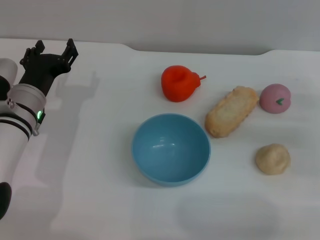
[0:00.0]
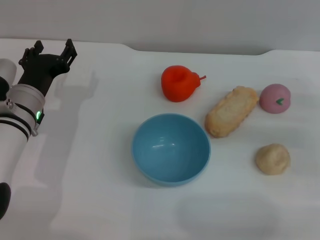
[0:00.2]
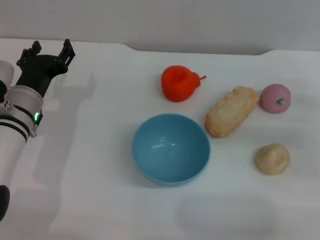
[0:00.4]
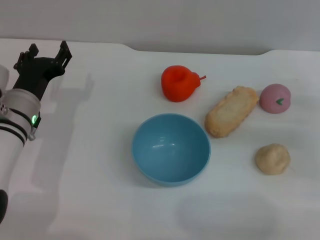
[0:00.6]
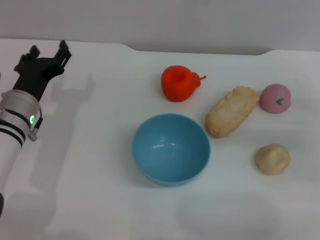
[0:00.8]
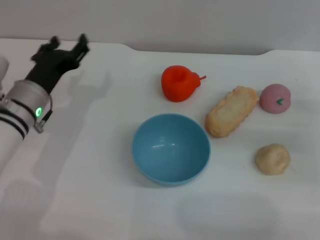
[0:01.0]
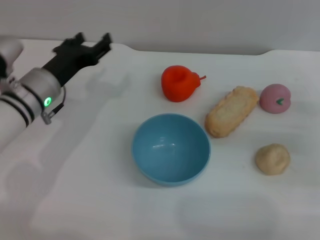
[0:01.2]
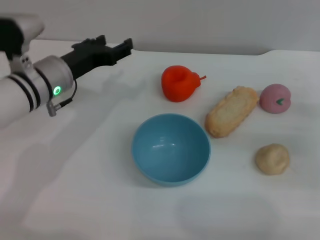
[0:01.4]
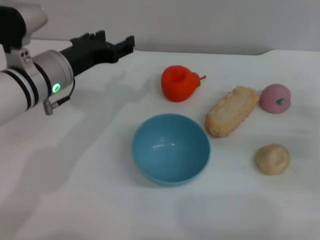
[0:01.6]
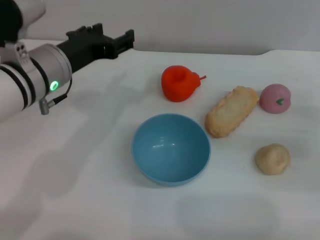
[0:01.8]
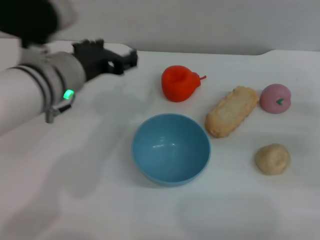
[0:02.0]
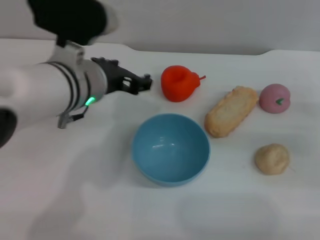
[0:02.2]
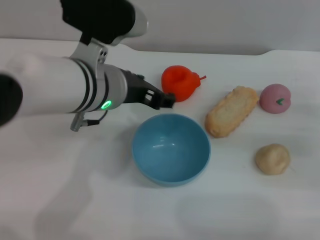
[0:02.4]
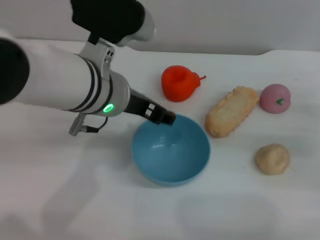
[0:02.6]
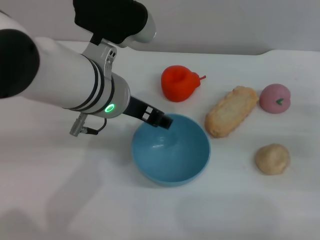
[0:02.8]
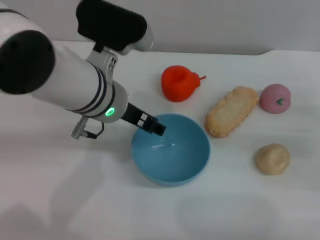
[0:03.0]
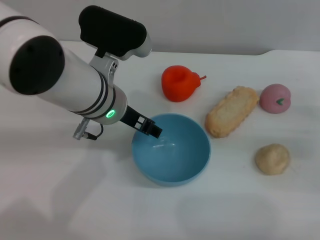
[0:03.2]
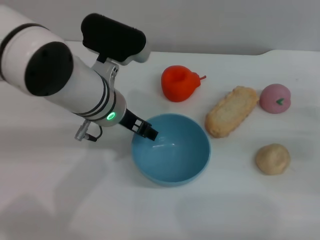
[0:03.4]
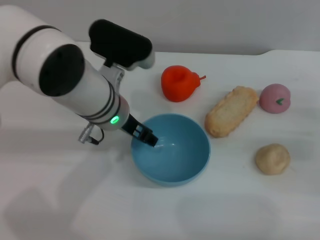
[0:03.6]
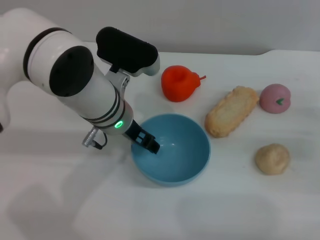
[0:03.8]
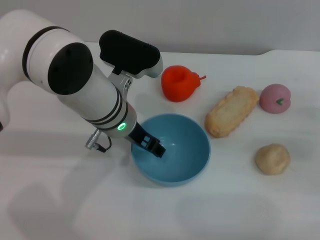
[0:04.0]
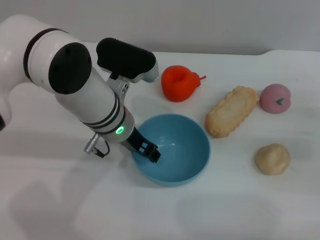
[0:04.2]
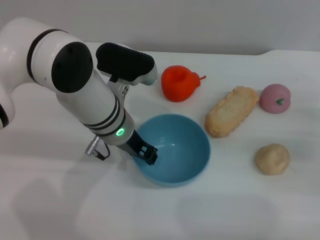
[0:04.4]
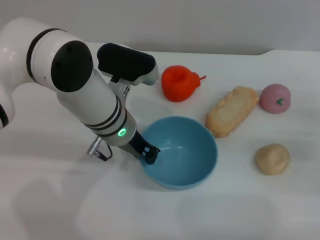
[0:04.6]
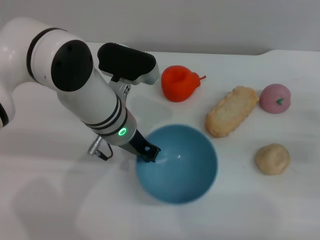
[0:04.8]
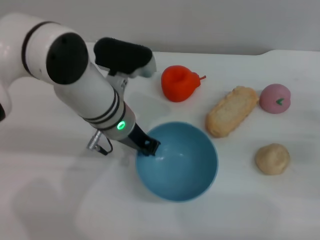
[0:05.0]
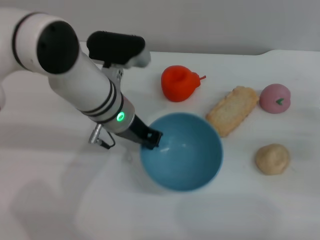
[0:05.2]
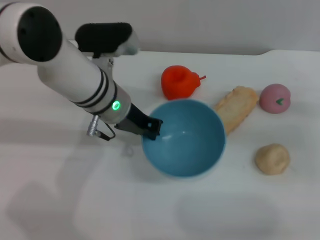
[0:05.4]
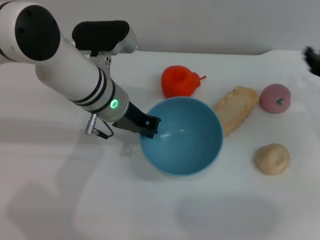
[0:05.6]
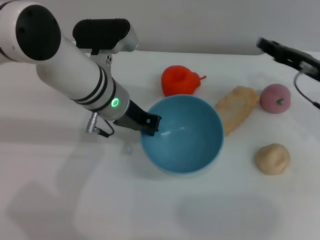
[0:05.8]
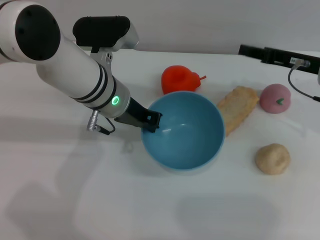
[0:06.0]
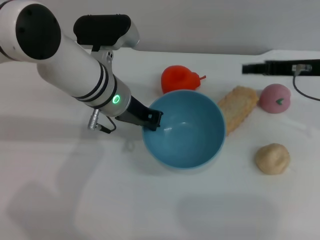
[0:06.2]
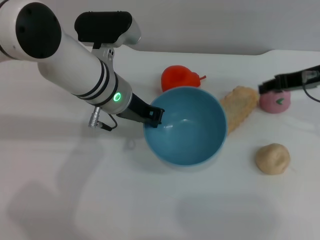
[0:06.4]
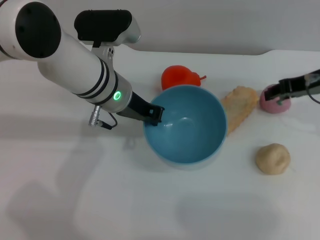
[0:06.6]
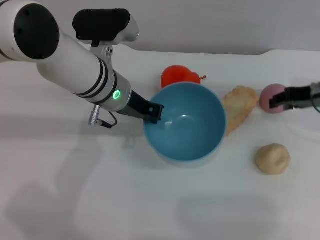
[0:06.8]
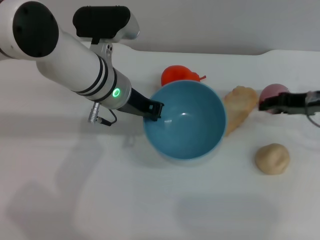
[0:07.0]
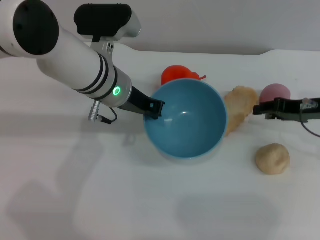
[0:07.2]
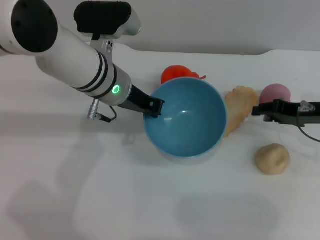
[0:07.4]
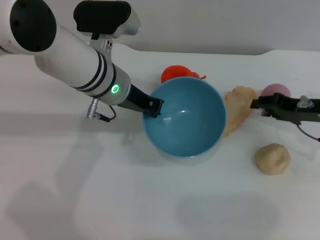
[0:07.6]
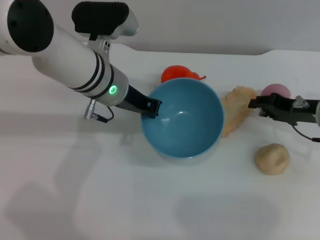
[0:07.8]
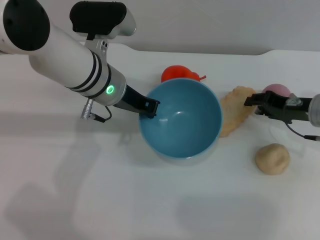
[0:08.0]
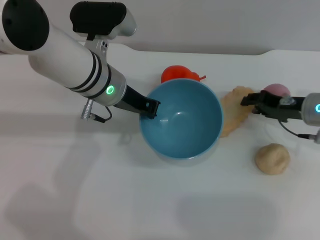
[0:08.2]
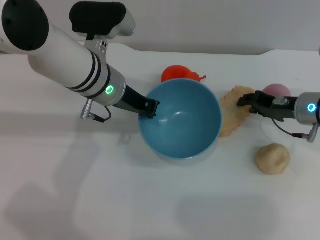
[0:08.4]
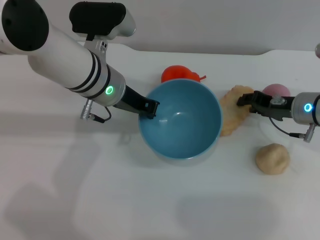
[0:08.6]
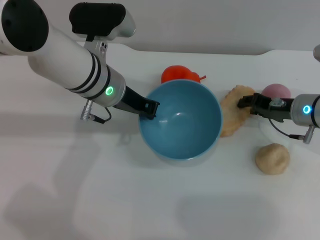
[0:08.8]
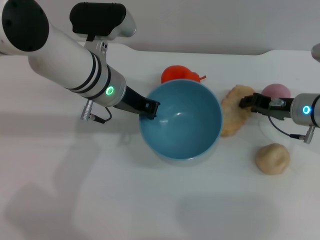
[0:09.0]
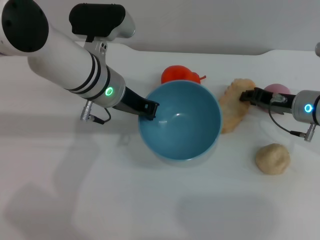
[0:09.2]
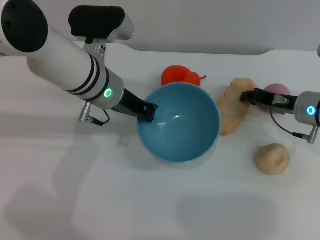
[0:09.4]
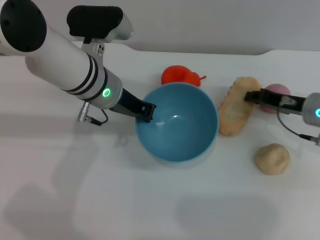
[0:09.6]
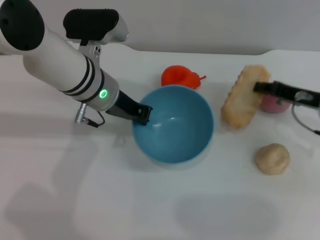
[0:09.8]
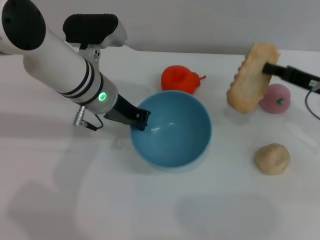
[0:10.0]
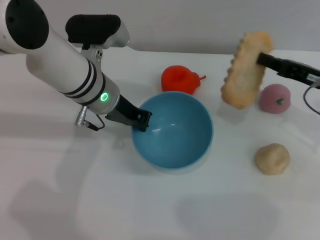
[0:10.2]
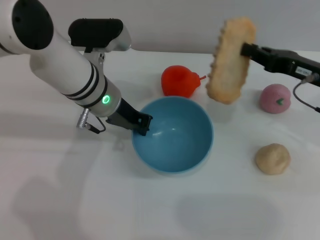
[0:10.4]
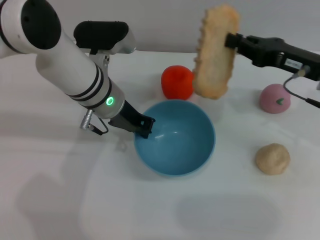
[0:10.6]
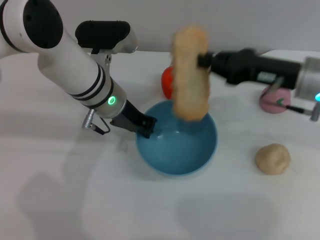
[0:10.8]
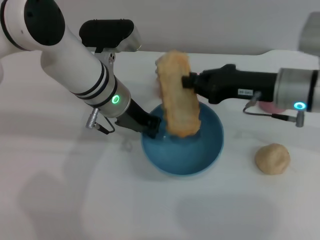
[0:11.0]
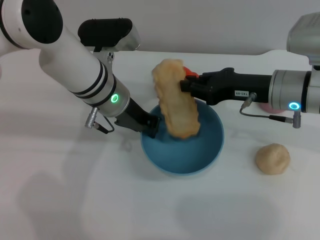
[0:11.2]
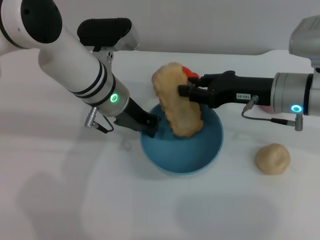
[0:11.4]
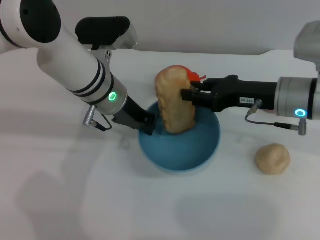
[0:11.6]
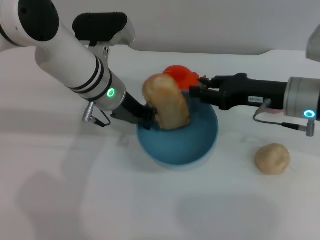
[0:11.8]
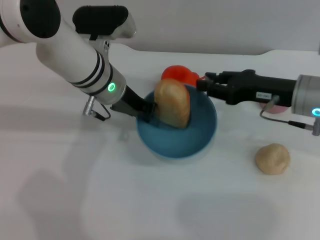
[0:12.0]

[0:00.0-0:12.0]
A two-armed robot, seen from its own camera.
Task of the whole recording: put the bread into the blue bowl and pour it out repeatedly.
Step, 0:00.0 to 0:05.0: Pick up the bowl with the left gripper.
Step, 0:05.4 to 0:09.8: Pick up the bread with the right gripper.
0:00.0 to 0:01.6: The left gripper moves upward, about 10 cm.
0:01.6 to 0:03.0: The left gripper travels to the right by roughly 10 cm.
0:03.0 to 0:04.4: The left gripper moves downward, some 5 cm.
0:04.4 to 0:06.0: The left gripper closes; the right gripper heads to the left, upward and forward, covering approximately 15 cm.
0:06.0 to 0:07.6: The right gripper shifts by approximately 5 cm.
0:07.6 to 0:09.0: The right gripper ends up roughly 5 cm from where it was.
0:09.0 to 0:10.4: The right gripper goes roughly 5 cm upward, and closes its fingers.
0:10.4 to 0:12.0: The right gripper opens.

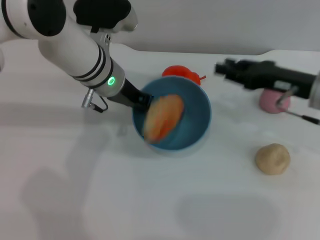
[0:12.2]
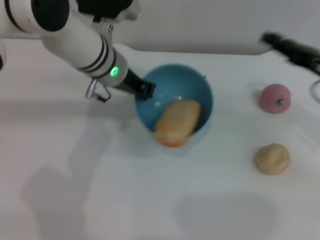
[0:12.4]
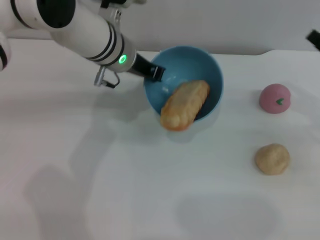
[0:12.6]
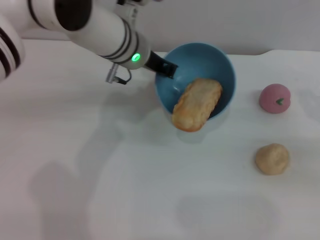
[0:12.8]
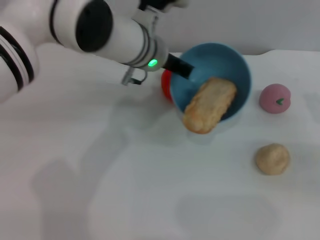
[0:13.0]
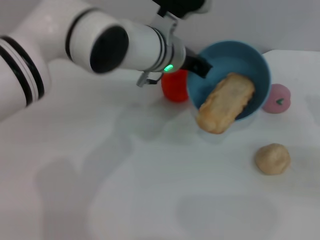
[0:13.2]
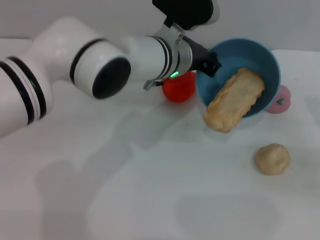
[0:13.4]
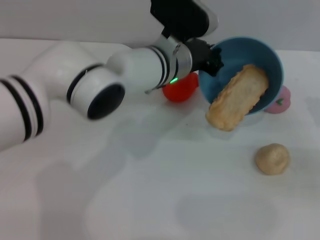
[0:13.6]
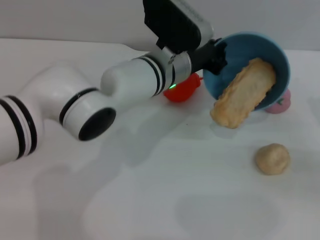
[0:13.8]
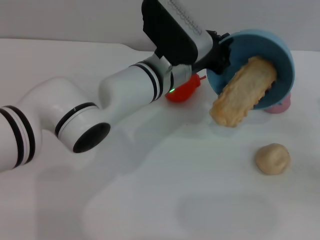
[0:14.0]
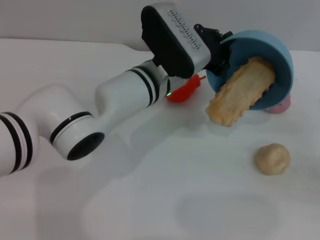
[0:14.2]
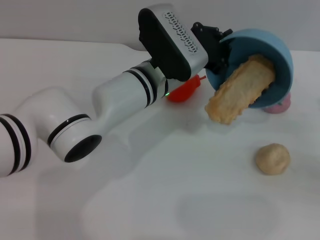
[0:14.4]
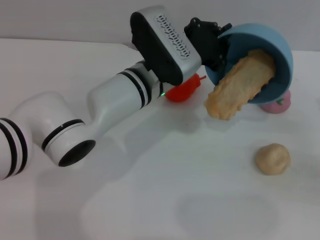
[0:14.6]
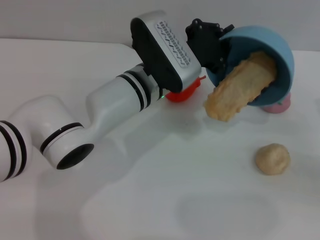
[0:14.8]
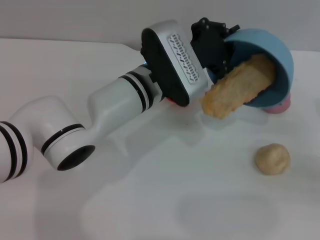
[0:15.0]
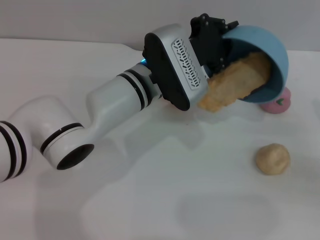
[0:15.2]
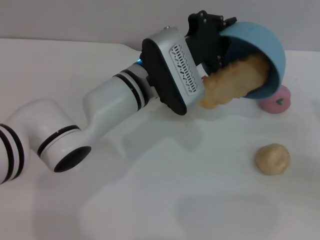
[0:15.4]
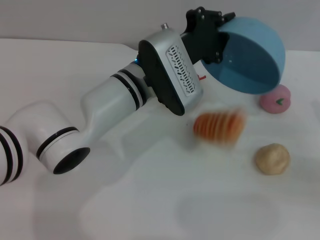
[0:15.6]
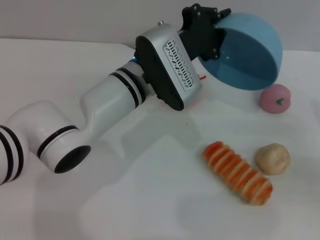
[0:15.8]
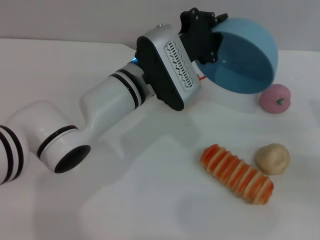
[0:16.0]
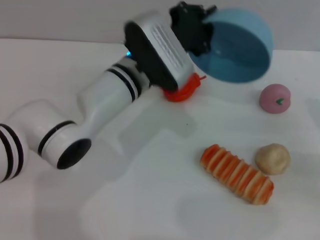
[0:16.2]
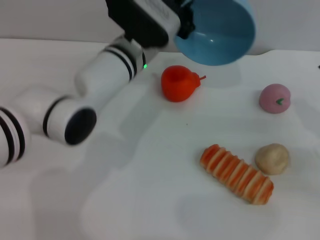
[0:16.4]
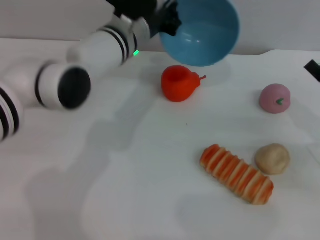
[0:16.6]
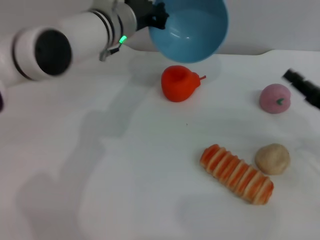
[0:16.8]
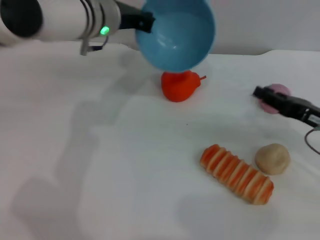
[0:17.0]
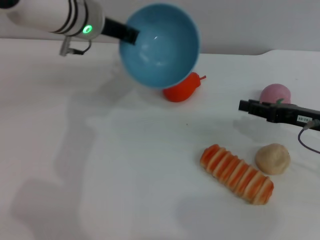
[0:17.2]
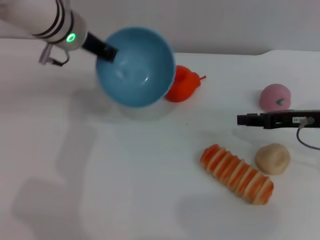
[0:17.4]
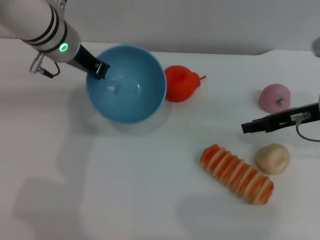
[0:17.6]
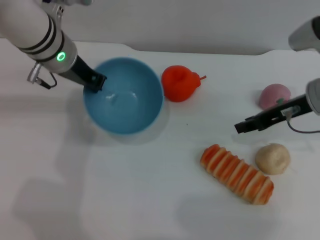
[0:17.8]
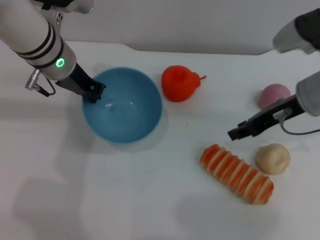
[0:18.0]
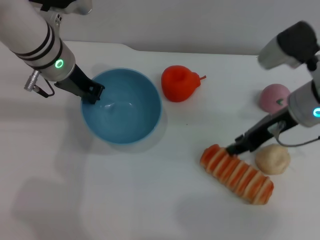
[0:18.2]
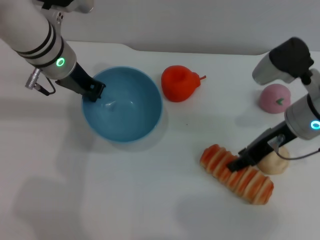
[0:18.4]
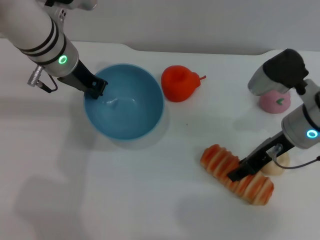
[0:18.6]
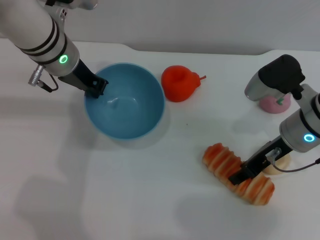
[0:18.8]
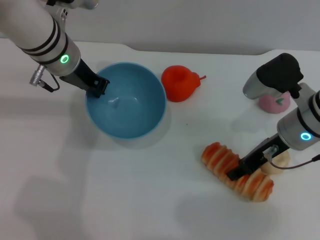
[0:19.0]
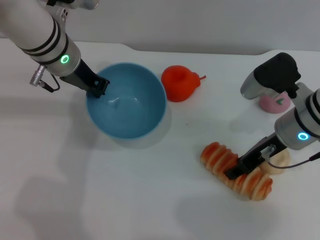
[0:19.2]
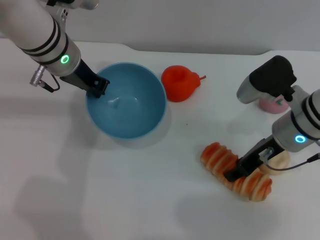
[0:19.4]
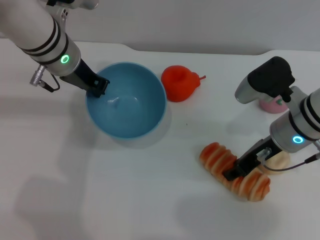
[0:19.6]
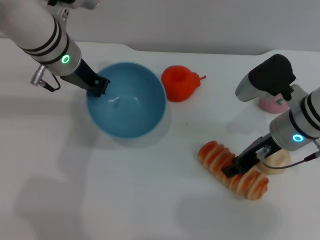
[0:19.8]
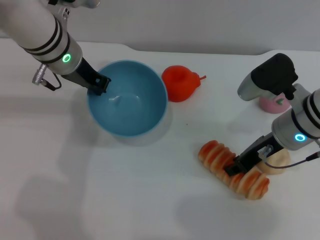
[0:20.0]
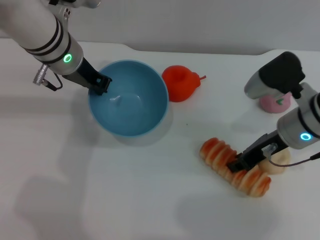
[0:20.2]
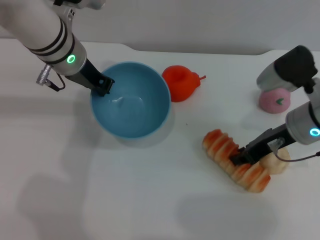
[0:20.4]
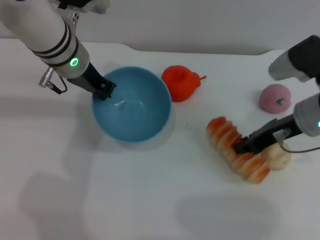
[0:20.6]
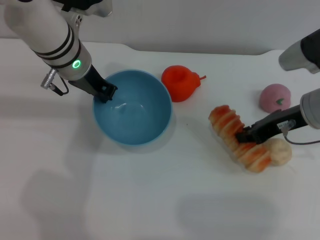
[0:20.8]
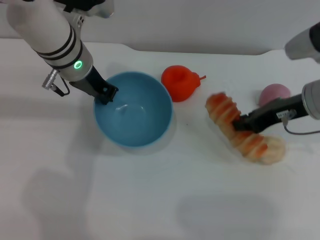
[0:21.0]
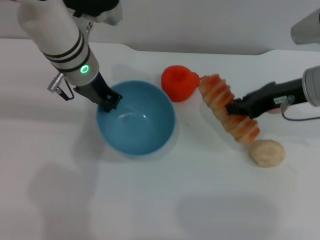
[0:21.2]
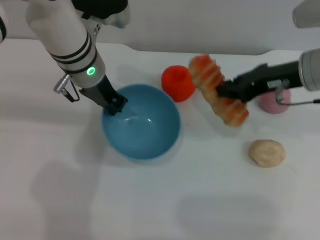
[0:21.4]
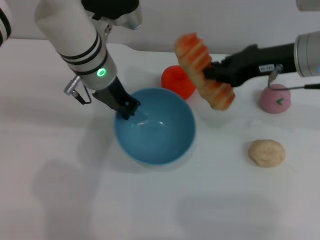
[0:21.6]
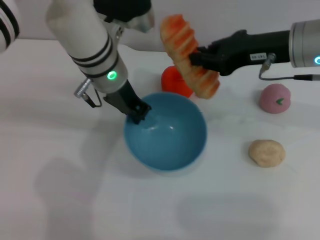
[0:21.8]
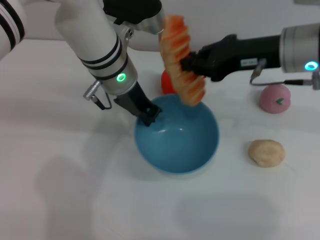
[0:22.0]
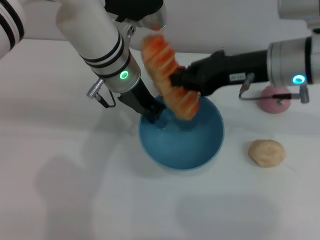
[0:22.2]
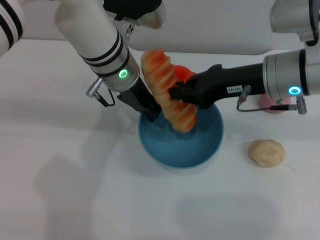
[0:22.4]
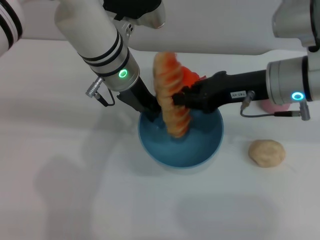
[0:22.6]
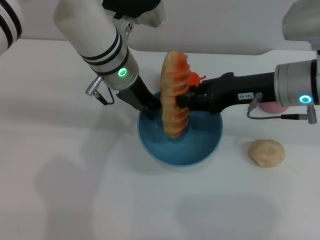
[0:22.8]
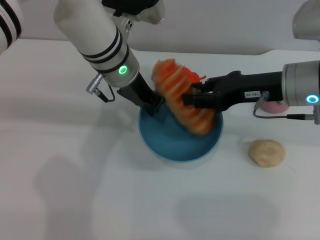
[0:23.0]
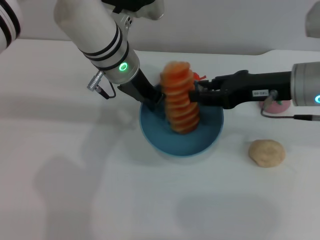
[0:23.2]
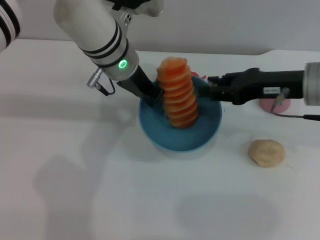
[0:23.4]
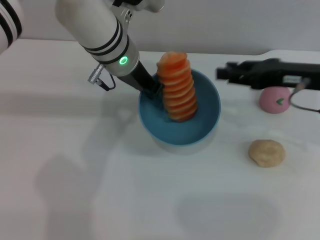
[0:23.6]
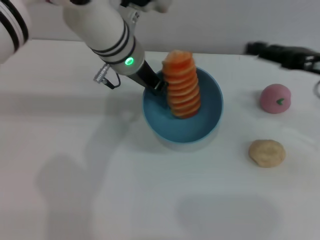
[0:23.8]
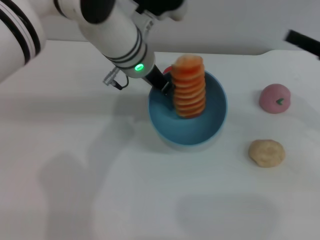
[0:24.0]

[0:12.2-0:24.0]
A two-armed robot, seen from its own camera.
Task of the whole recording: put the bread into the blue bowl and pour it out repeatedly.
Step, 0:12.6 to 0:16.0: Pour the bread out of the bowl.
Step, 0:16.2 to 0:20.8: Pick up the bread with the right gripper.
Step, 0:21.0 to 0:23.4: Place the bread into the bowl.
0:12.2 to 0:13.6: The right gripper shifts about 15 cm to the right, backward and downward. Meanwhile the left gripper goes approximately 10 cm to the right.
0:15.2 to 0:16.6: The left gripper travels forward by about 5 cm.
0:16.6 to 0:18.2: The left gripper goes roughly 10 cm to the left. Meanwhile the right gripper shifts approximately 15 cm to the left, upward and forward.
0:18.2 to 0:19.6: There are only small adjustments of the grippers.
0:19.6 to 0:21.0: The right gripper shifts by approximately 5 cm, and closes up.
0:21.0 to 0:22.6: The left gripper travels to the right by roughly 5 cm. The right gripper heads to the left, covering some 5 cm.
0:22.6 to 0:24.0: The right gripper is displaced to the right by approximately 15 cm, and opens.
